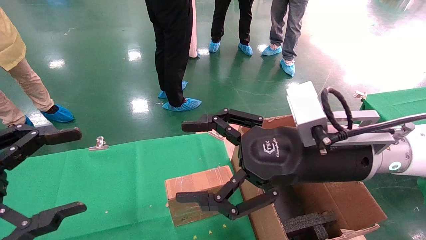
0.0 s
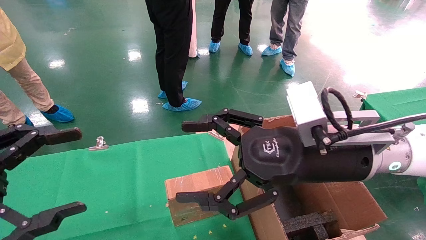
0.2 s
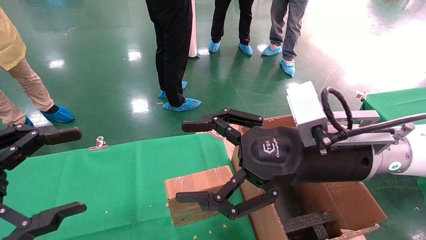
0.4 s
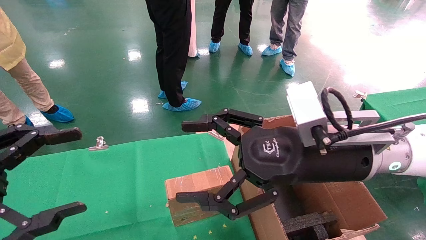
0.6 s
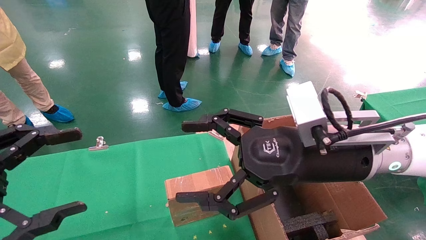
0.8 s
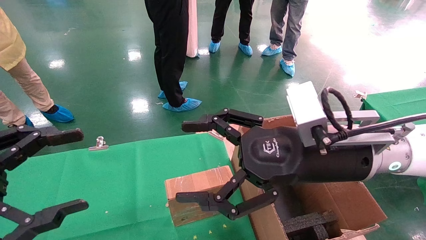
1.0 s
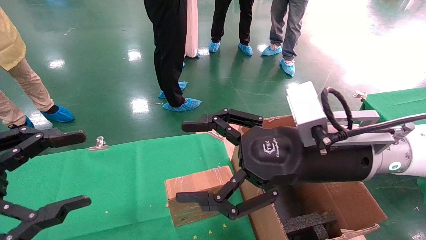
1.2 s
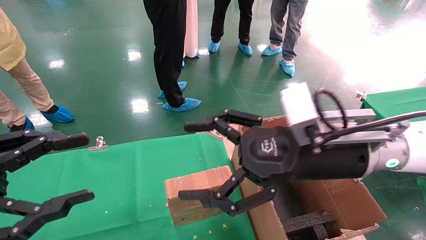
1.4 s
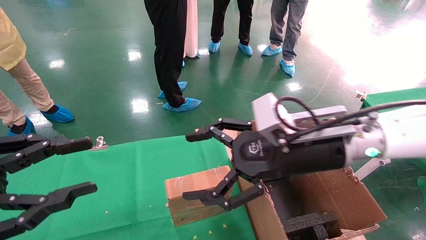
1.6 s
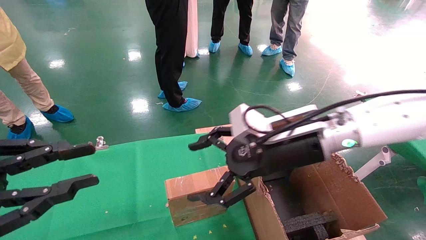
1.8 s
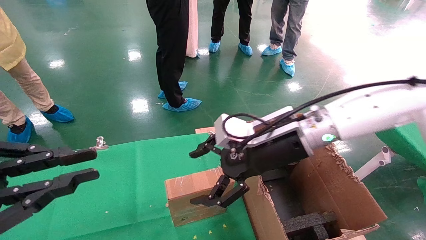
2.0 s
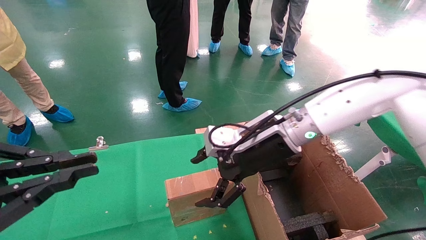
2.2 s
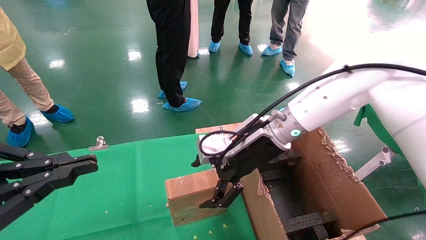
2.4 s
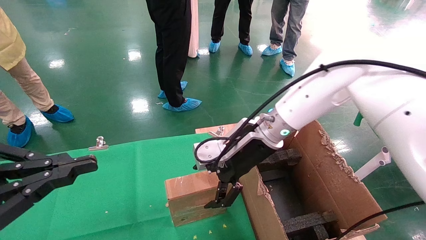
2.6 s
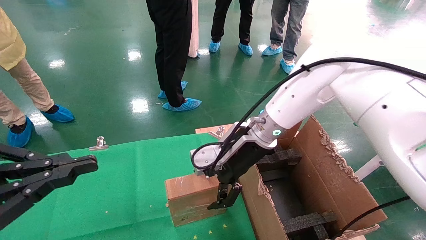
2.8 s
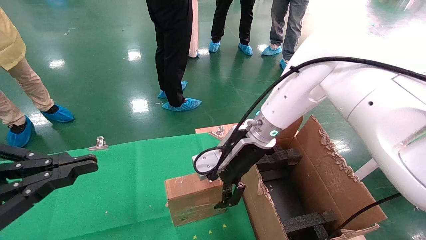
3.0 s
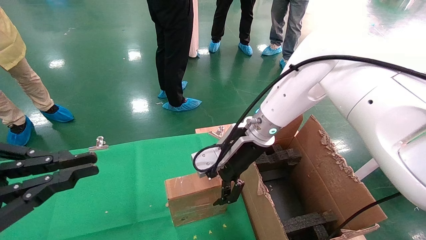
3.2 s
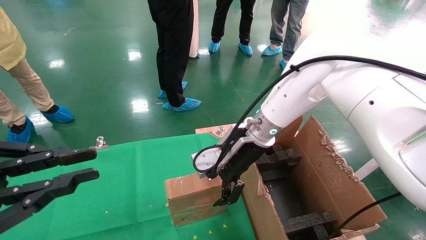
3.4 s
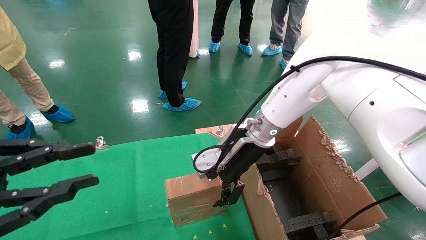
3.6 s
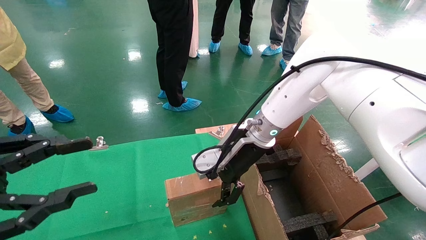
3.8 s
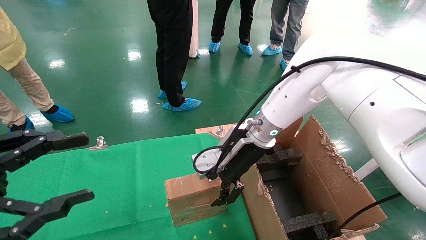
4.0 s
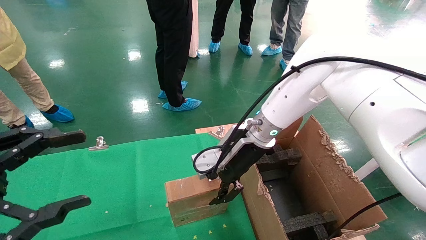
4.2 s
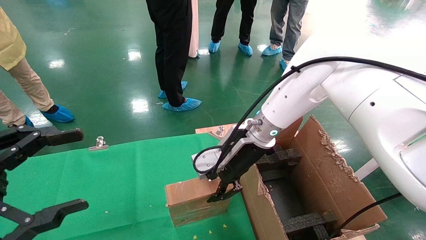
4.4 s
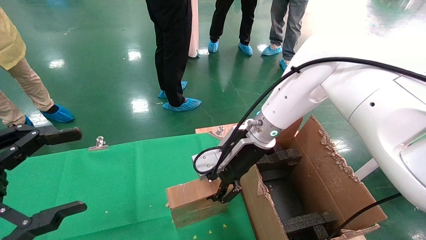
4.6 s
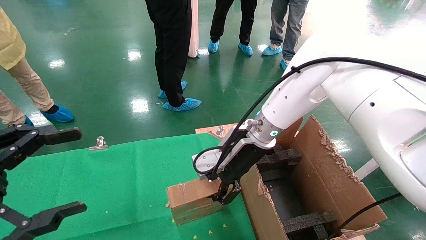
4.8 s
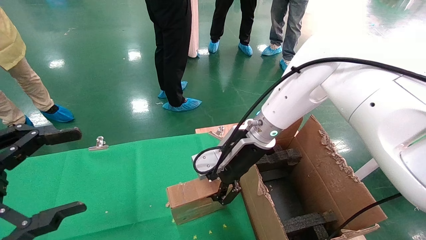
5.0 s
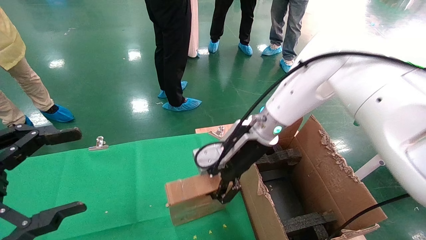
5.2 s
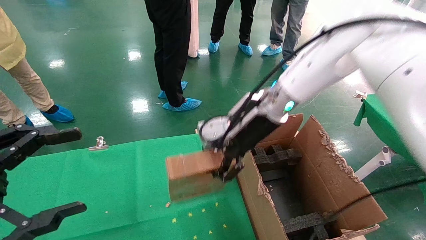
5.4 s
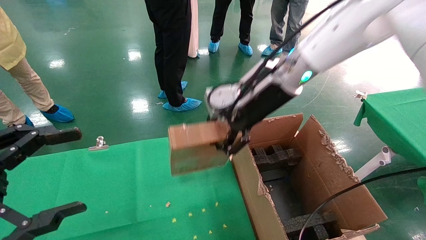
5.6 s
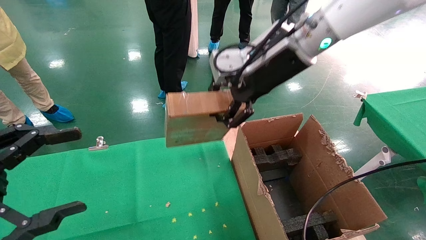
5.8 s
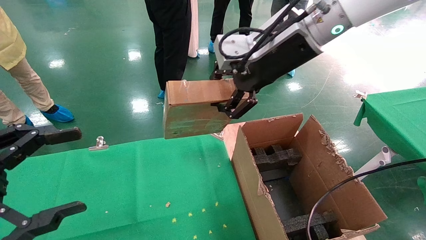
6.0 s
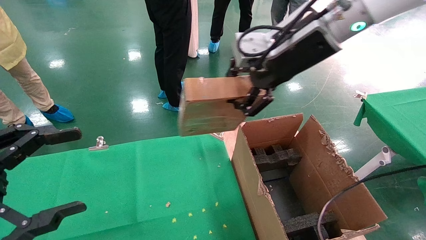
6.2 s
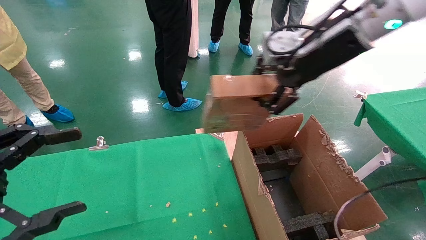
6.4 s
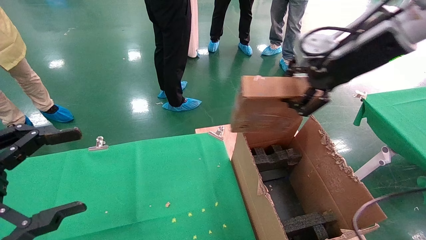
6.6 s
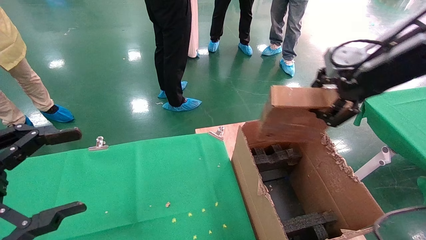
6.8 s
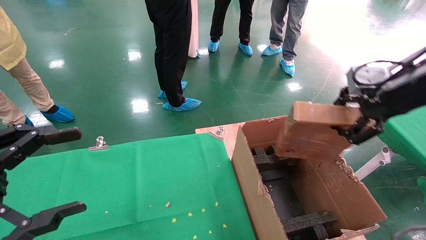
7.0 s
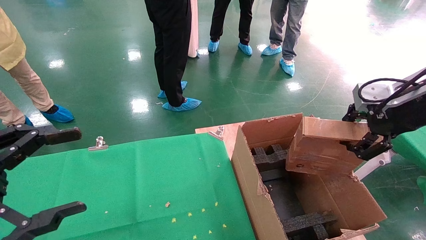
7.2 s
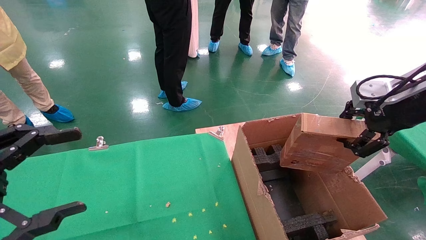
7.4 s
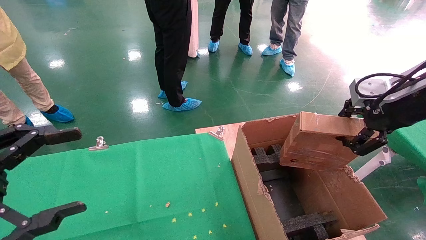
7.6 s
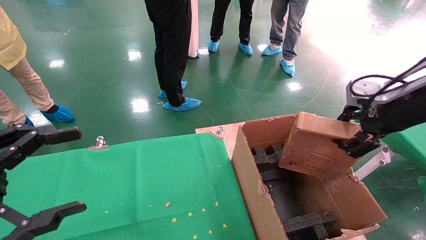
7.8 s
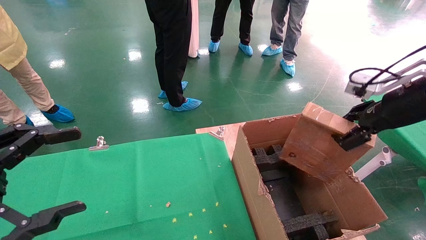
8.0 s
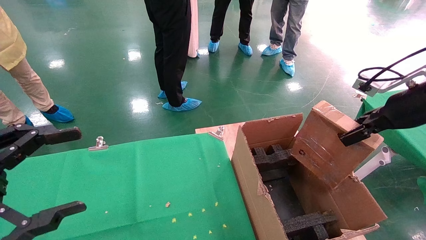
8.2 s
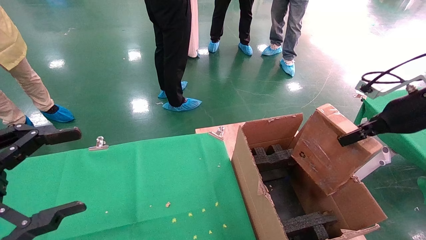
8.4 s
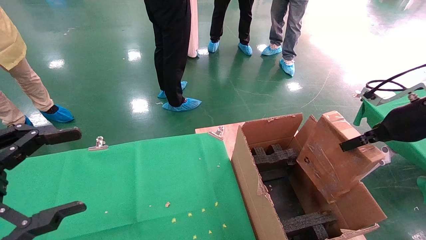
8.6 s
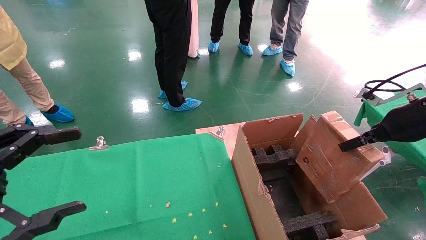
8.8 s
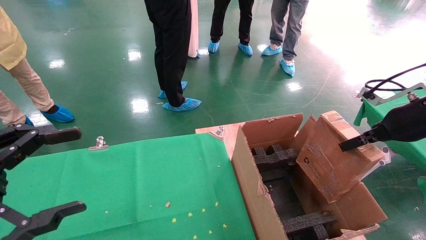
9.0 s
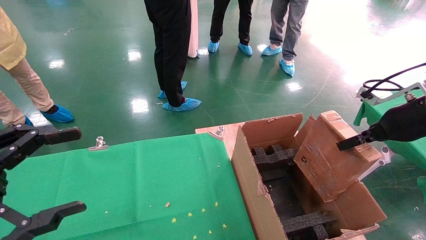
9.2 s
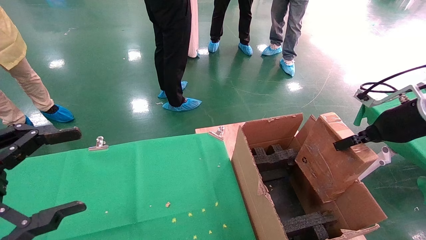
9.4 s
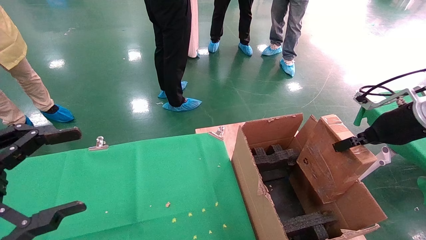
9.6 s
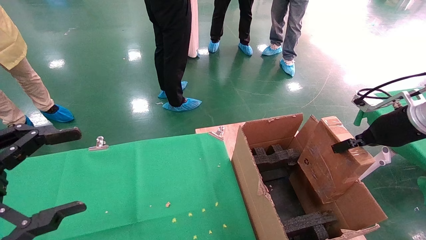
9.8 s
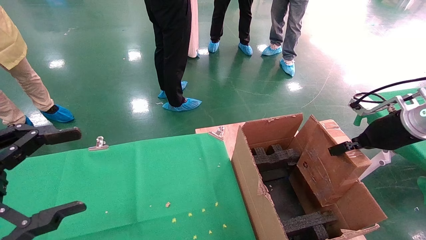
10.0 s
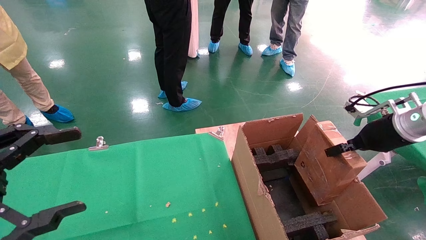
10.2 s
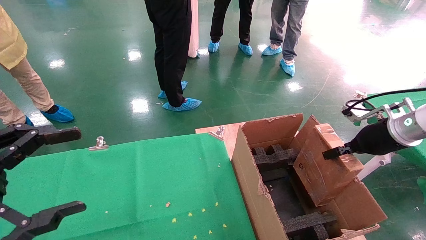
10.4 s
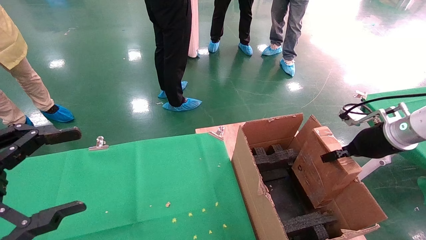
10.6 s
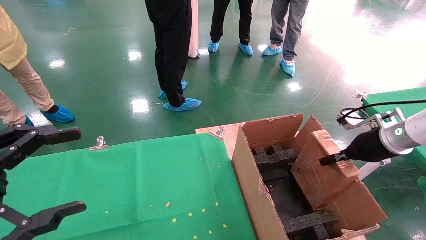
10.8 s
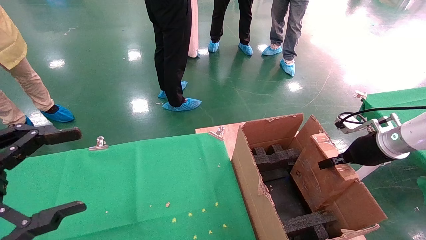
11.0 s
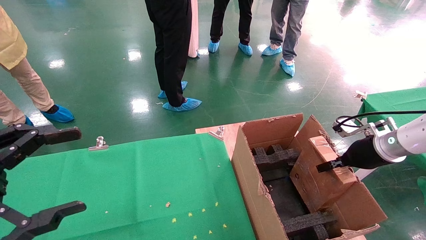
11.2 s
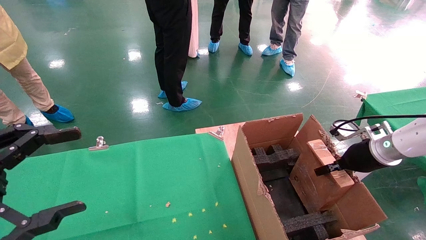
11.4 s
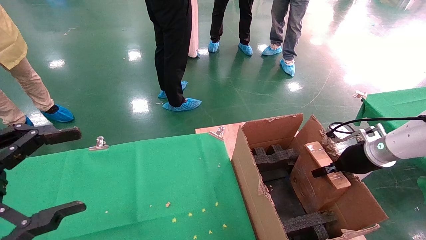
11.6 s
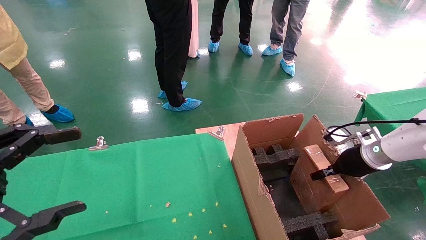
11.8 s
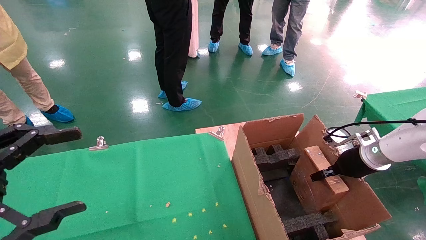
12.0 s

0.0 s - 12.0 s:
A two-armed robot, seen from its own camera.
Task of the whole recording: using a robotic arm to pick up a cardboard box and palace it the carton.
Step, 1.4 s - 4.6 s: Pick up the mouse and the power cord paper box.
0.0 s - 1.6 s: The left gripper closes.
1.6 s - 3.0 s: The left gripper closes, while the right gripper goes approximately 15 cm forward and to the left.
3.0 s - 4.4 s: The right gripper closes; the left gripper opens.
4.4 s - 6.0 s: The right gripper is displaced upward by approximately 20 cm, and closes.
6.0 s - 7.6 s: The right gripper heads to the right, covering roughly 25 cm.
7.6 s - 9.0 s: The right gripper is displaced downward by about 5 cm.
9.0 s - 10.4 s: The right gripper is displaced downward and forward by approximately 10 cm.
10.4 s - 12.0 s: The right gripper moves downward, roughly 10 cm.

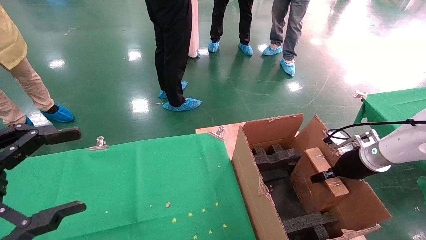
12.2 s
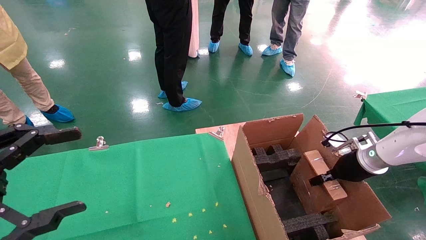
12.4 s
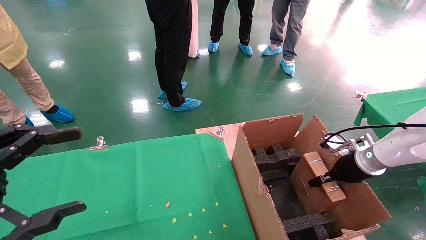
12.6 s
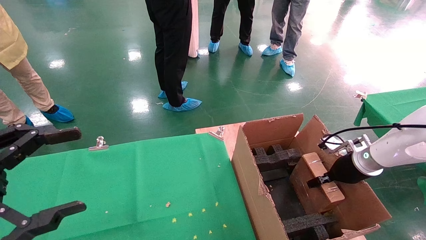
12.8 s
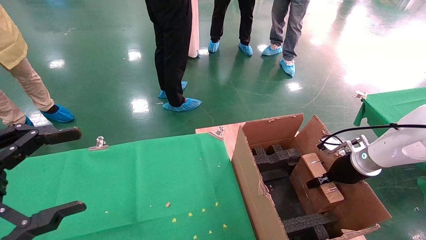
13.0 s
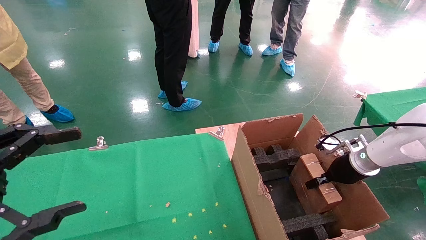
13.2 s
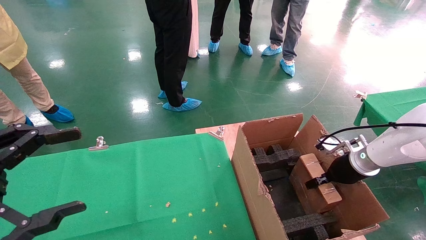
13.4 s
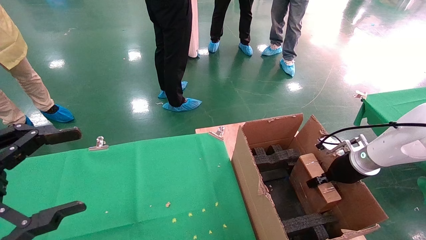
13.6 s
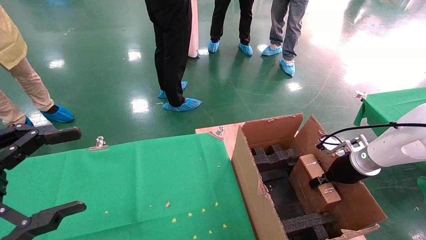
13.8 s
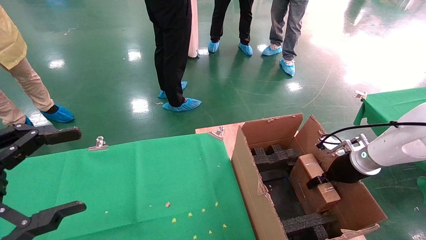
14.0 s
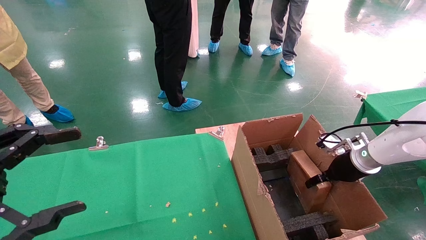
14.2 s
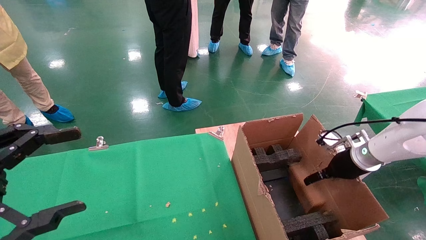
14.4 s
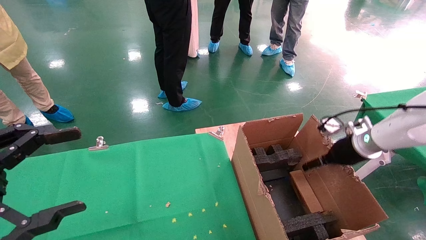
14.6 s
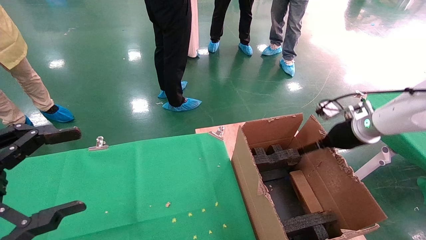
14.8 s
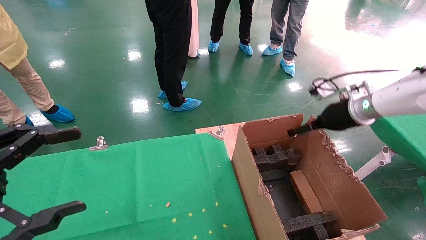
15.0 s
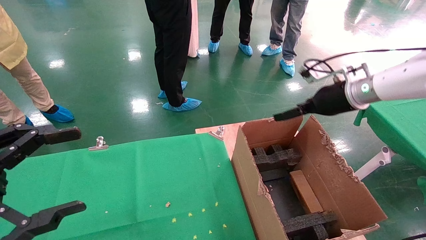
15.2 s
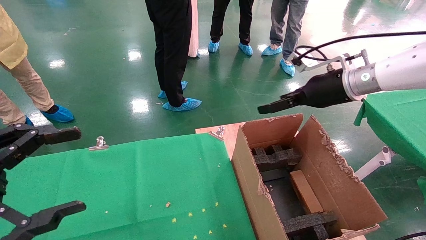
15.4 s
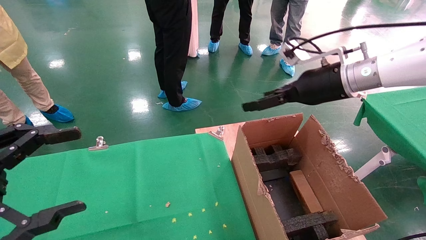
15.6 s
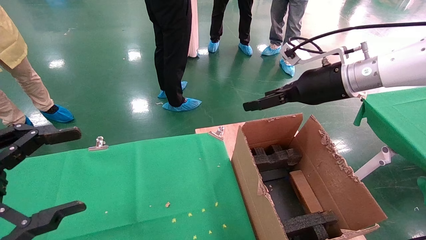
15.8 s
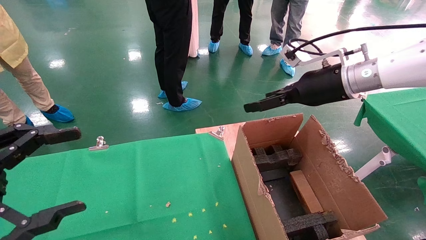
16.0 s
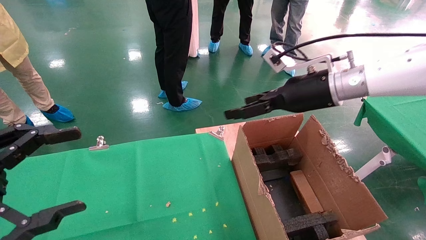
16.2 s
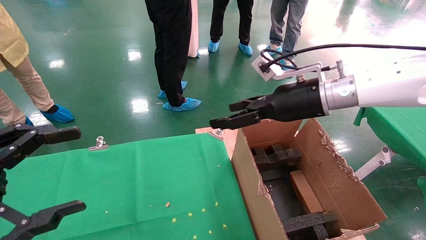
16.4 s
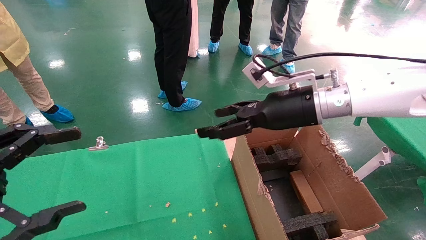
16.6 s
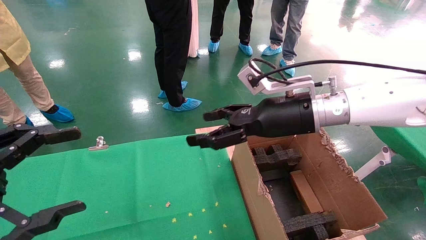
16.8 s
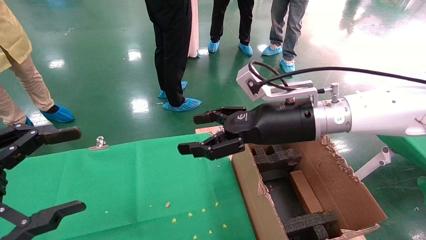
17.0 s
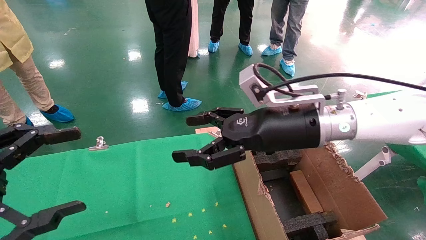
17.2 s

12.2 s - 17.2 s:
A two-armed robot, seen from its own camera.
Task of the whole recording: using a robotic arm to pick up a cardboard box and palace it the carton.
Step, 12.2 s - 15.0 s: Place the mouse and the power cord paper box into the container.
12.2 s - 13.8 s: The grippers move only a little.
13.8 s - 15.6 s: The right gripper heads upward and to the left, covering some 25 cm, and opens its fingers.
15.6 s - 17.2 s: The right gripper moves to the left, backward and downward, about 15 cm.
